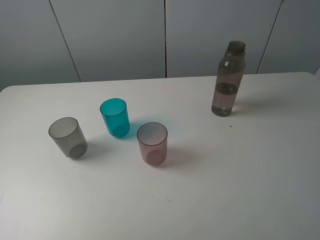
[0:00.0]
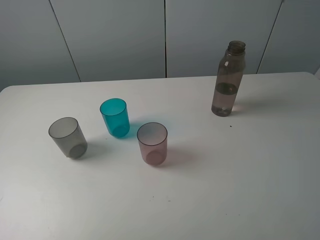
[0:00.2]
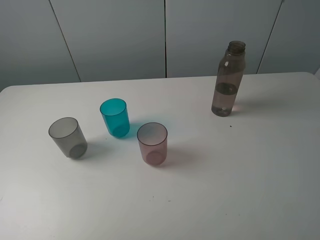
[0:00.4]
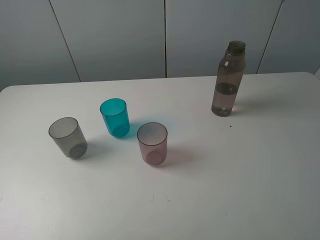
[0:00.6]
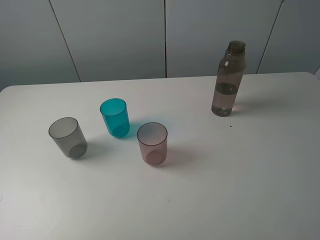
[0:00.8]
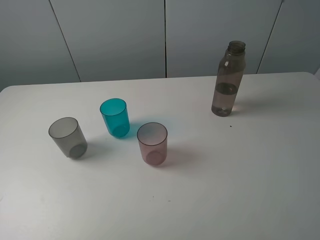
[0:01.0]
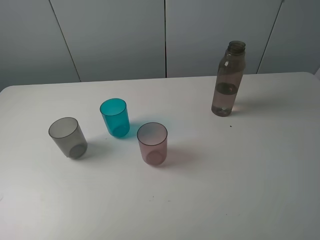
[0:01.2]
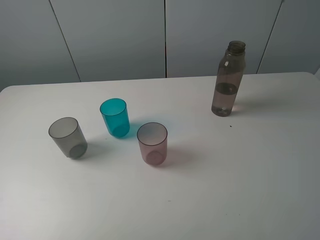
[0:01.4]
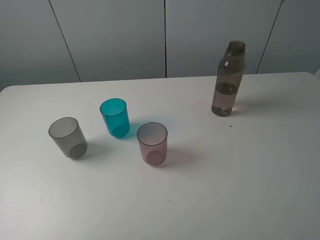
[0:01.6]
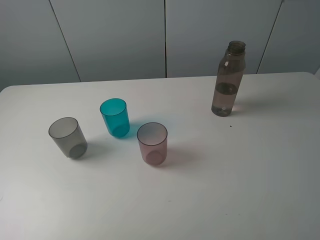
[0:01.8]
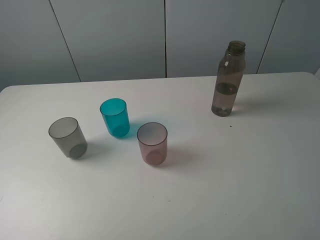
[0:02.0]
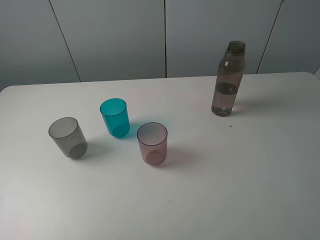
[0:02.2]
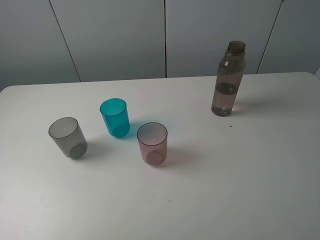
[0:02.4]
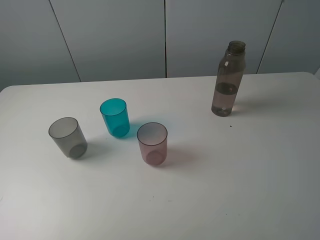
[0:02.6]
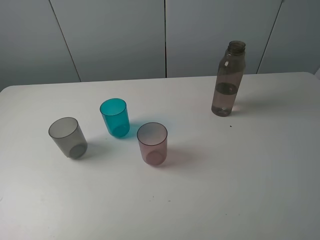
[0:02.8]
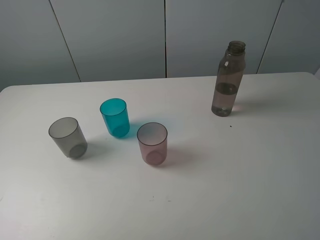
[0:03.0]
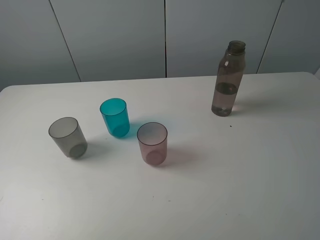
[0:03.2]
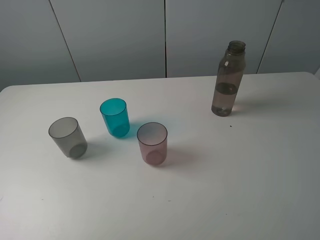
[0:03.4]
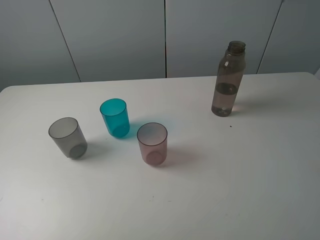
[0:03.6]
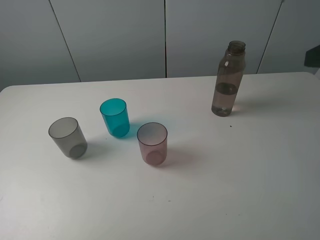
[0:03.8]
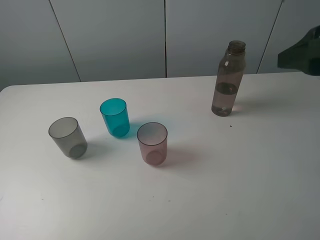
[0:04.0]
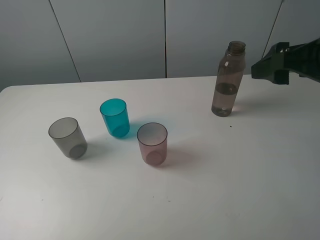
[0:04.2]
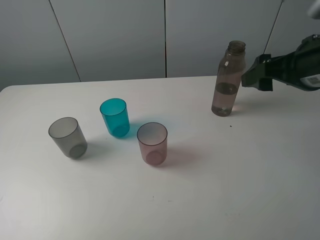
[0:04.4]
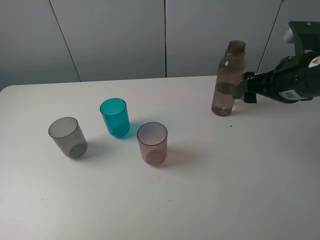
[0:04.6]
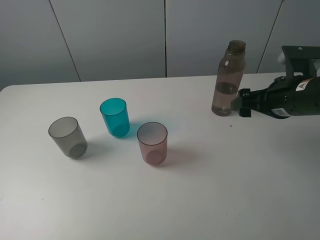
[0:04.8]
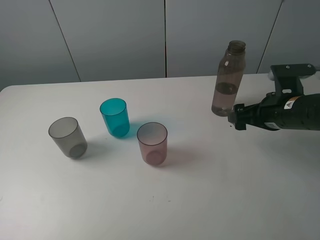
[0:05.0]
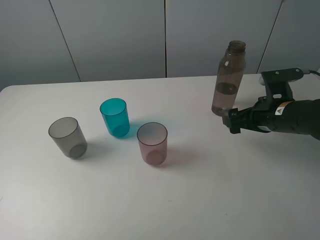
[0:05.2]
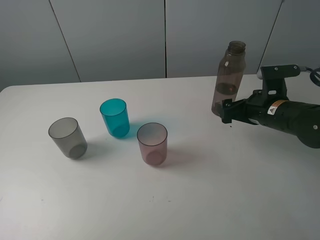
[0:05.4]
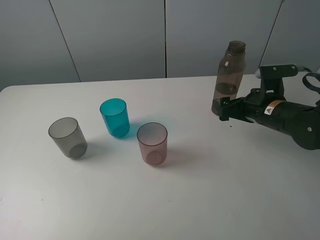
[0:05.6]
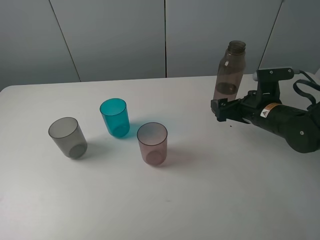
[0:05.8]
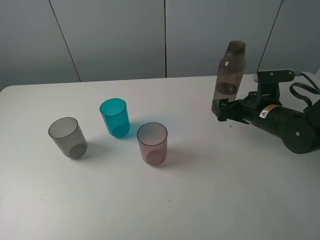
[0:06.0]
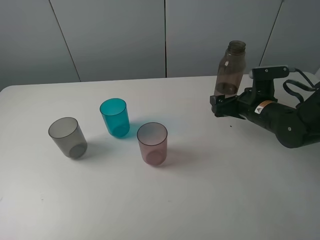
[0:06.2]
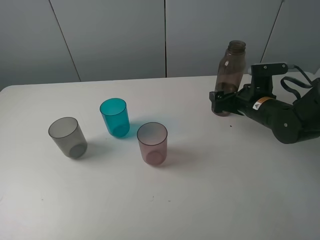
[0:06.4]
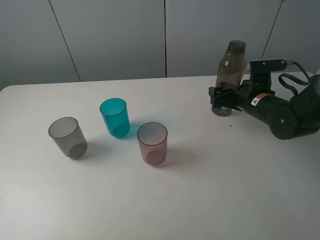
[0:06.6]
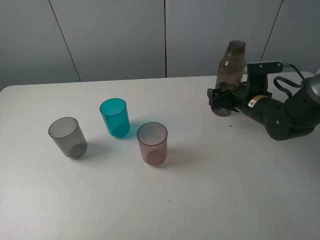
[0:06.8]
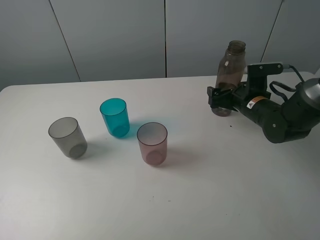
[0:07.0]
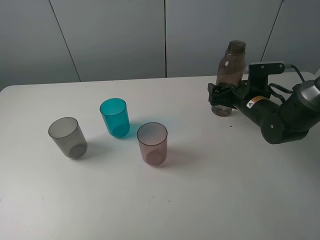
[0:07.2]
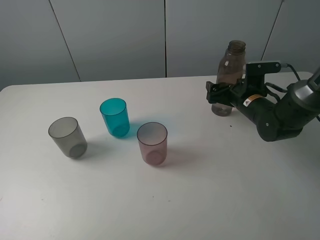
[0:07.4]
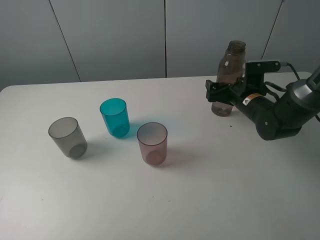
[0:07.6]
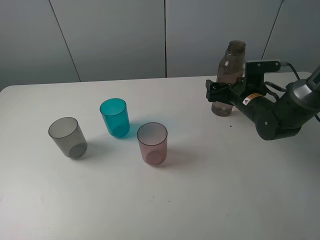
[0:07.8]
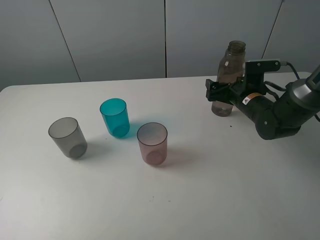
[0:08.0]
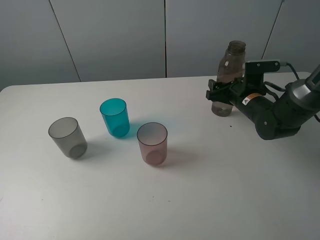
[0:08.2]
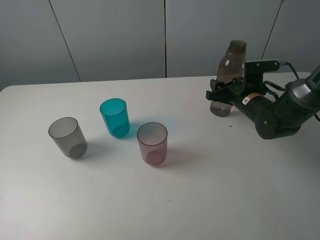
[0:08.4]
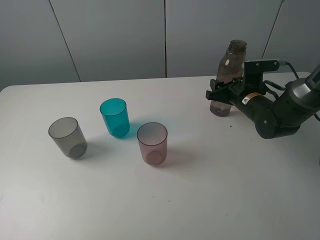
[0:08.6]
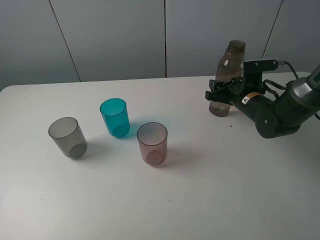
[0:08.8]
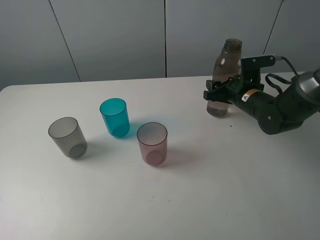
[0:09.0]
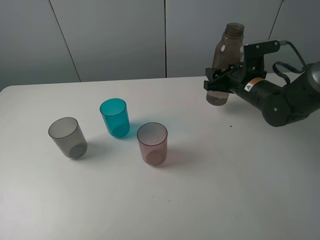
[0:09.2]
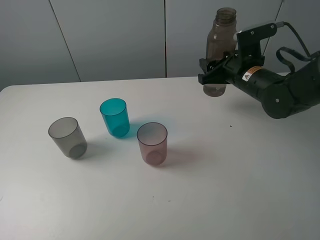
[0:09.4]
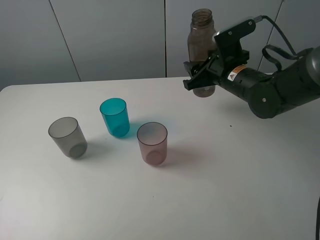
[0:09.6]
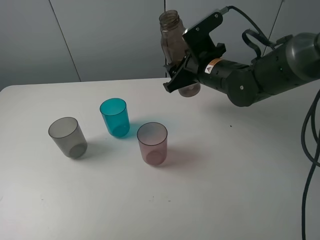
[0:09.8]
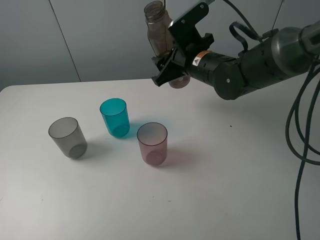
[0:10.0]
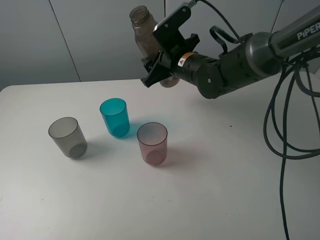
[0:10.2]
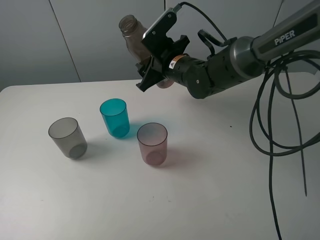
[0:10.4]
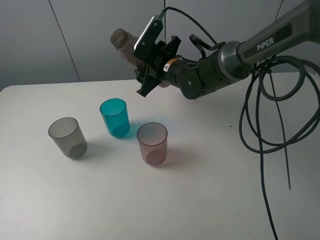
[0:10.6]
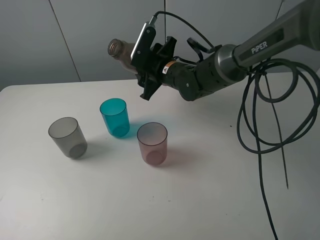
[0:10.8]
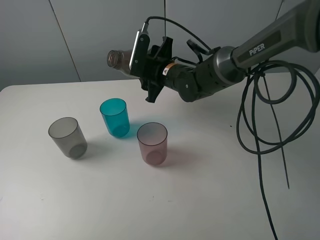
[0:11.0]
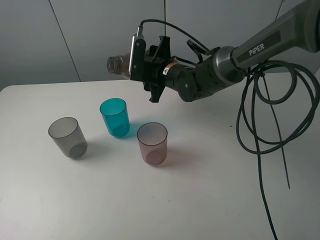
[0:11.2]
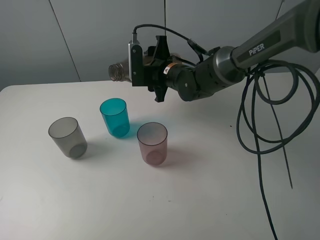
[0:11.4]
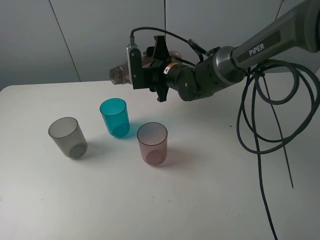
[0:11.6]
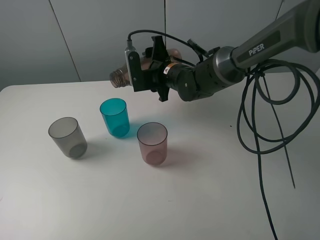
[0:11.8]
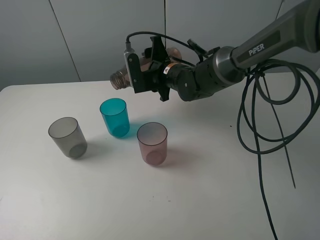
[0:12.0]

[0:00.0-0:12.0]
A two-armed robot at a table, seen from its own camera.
Task of the whole recording: pick up the bottle filled with water and pour water into the middle cup of the three cups.
Step, 0:00.0 to 0:08.8: Grasp the brown bottle with the right gripper.
0:00.0 to 0:01.6: Both grippers stay about where they are.
0:03.0 to 0:04.4: The right gripper travels forward by about 20 cm.
0:04.4 to 0:06.0: The right gripper moves downward, roughly 15 cm.
0:06.0 to 0:07.6: The right gripper travels forward by approximately 5 cm.
0:07.6 to 0:09.0: The right gripper closes its fingers.
0:09.0 to 0:10.4: The right gripper goes roughly 15 cm to the left.

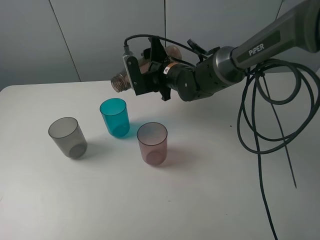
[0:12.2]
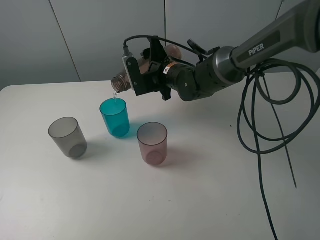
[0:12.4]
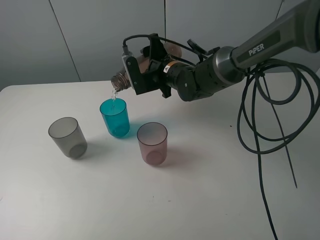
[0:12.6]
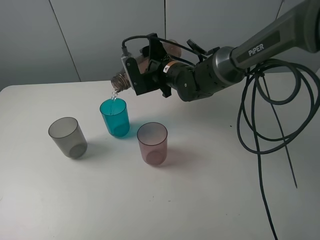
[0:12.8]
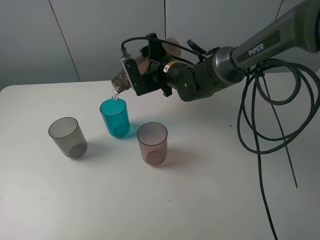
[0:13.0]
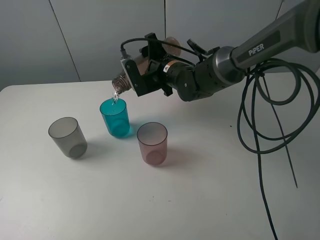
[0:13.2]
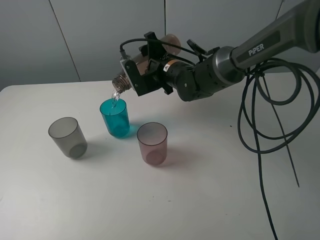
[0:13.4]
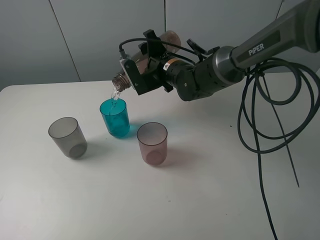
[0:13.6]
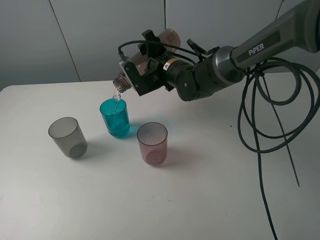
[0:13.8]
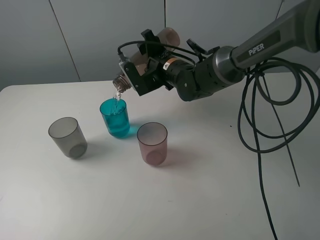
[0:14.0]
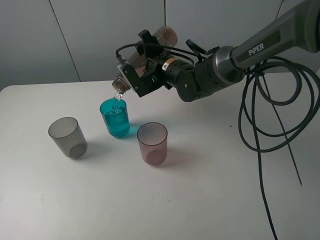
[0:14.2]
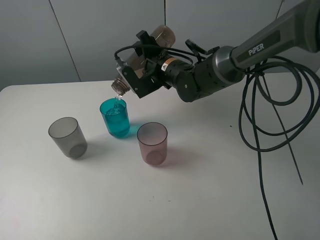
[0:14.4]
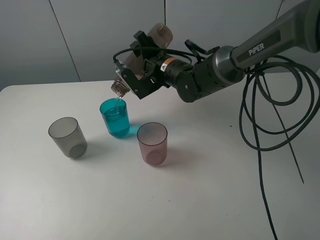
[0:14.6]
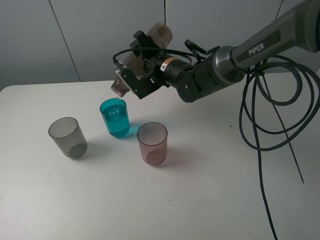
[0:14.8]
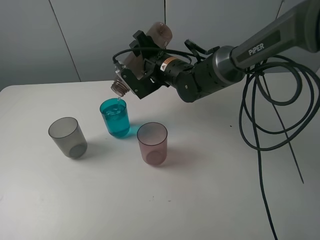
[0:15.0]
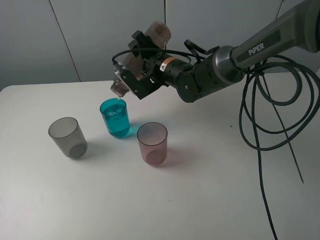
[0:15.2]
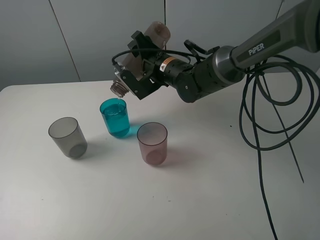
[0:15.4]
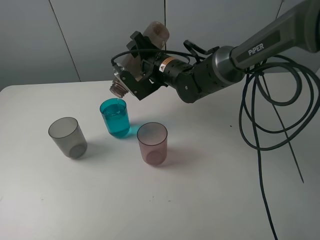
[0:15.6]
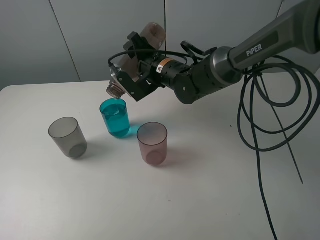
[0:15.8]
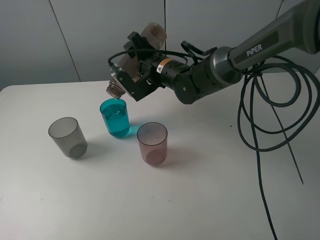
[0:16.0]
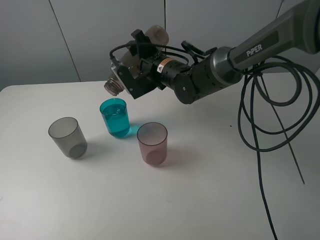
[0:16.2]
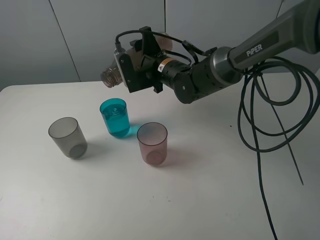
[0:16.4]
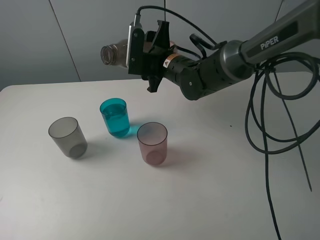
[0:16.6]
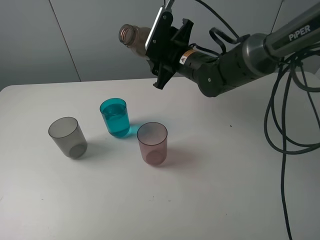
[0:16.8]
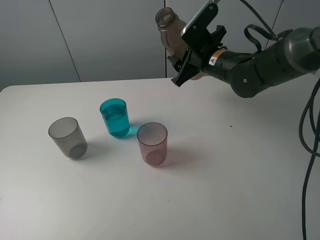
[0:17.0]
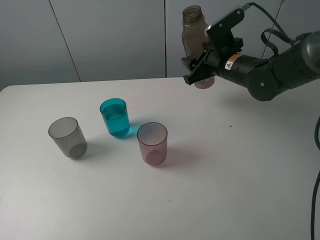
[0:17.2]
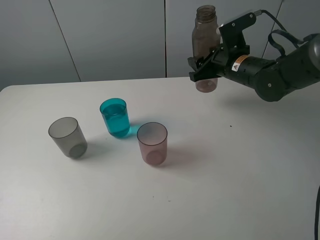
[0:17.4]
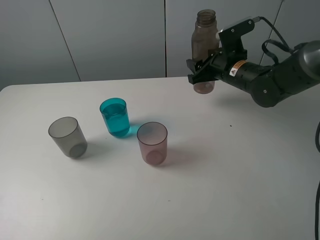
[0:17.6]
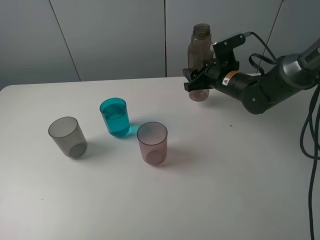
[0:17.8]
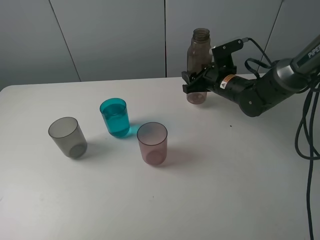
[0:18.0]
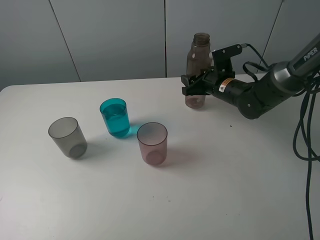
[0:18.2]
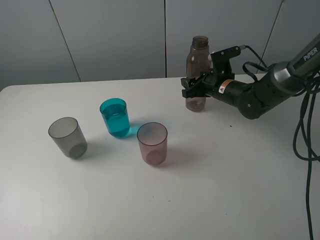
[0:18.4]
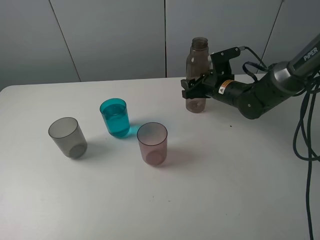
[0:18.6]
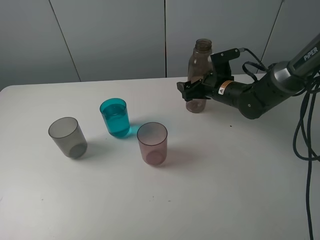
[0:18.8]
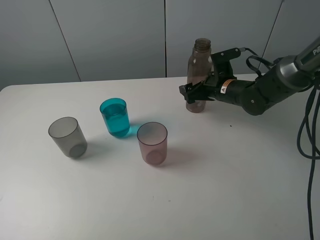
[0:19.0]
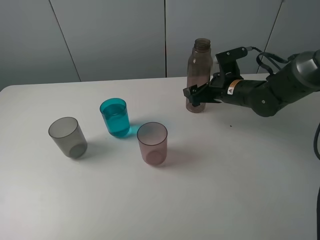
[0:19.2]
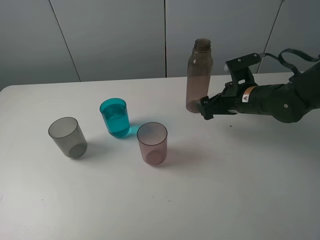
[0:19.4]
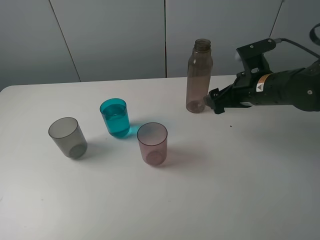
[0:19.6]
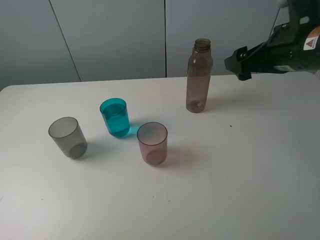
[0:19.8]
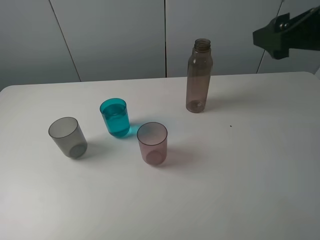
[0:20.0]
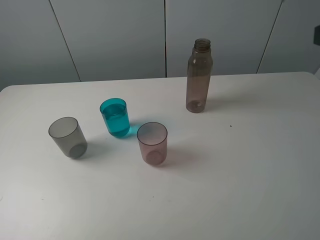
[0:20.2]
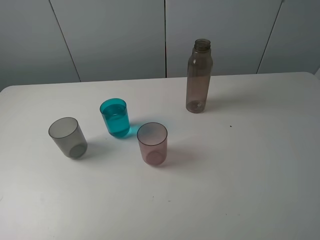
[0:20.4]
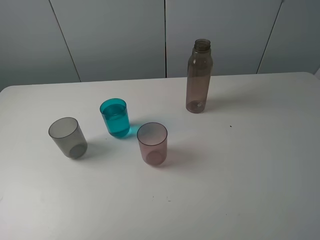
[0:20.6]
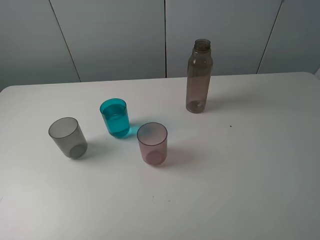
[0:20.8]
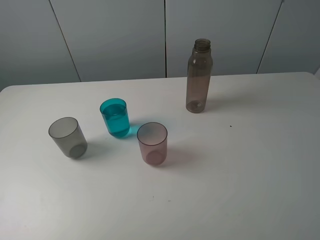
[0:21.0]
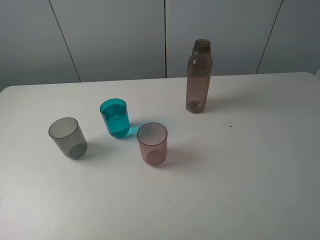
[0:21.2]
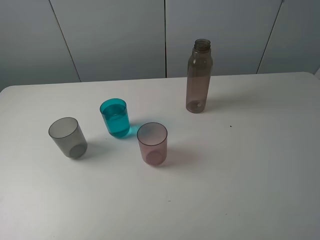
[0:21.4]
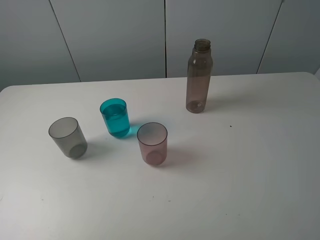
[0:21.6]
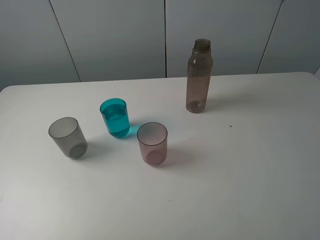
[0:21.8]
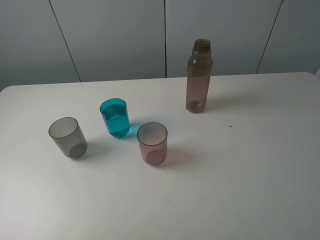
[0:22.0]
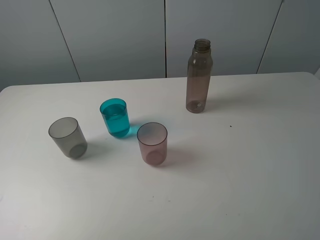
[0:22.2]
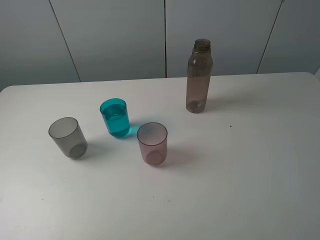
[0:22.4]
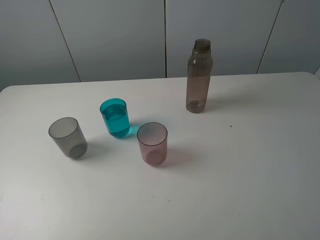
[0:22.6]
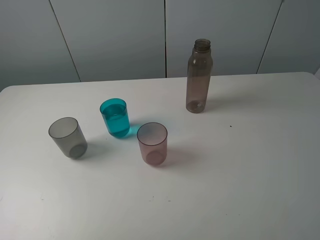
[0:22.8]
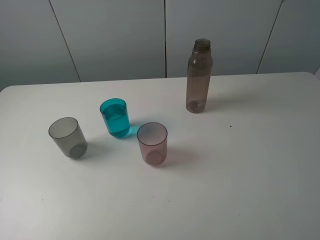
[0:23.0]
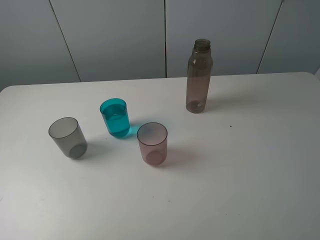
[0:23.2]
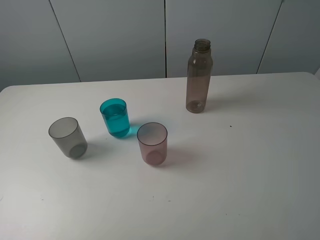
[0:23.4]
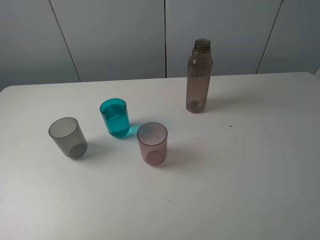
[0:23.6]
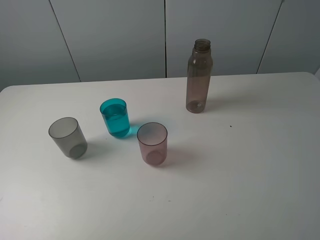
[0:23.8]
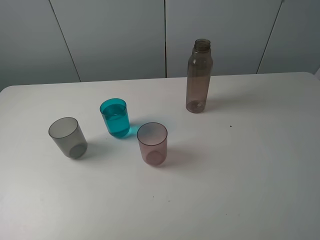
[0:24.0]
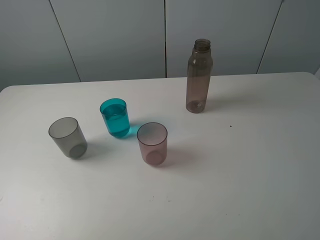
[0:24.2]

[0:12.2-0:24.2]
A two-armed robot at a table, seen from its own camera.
Task of the whole recording: pick up the bottle filled with water and pour water into the middle cup of the three cups.
Step, 0:12.2 to 0:16.0: Pour water from brown bottle to blue cup with the right gripper.
Step, 0:16.2 to 0:19.6: Place the brown bottle with the right gripper.
0:12.2 to 0:13.8: The grippers stay close to where they were, moving slightly.
0:13.8 to 0:15.2: The grippers move only a little.
0:16.6 to 0:18.2: The right gripper shifts about 15 cm to the right and downward.
0:18.2 to 0:19.8: The right gripper heads upward and backward, covering approximately 20 cm, and opens.
0:19.8 to 0:21.2: The right gripper goes some 25 cm backward.
0:22.6 to 0:24.2: The two grippers keep their place.
